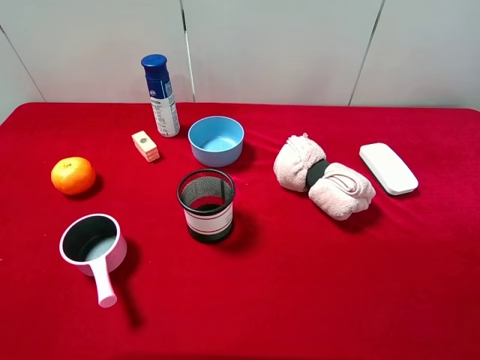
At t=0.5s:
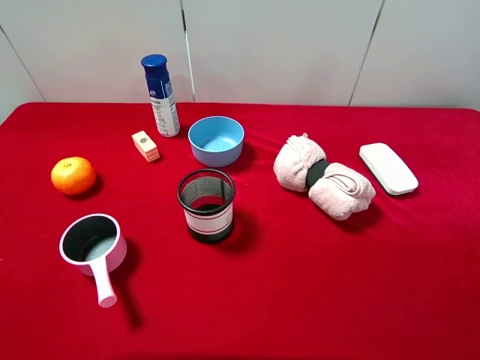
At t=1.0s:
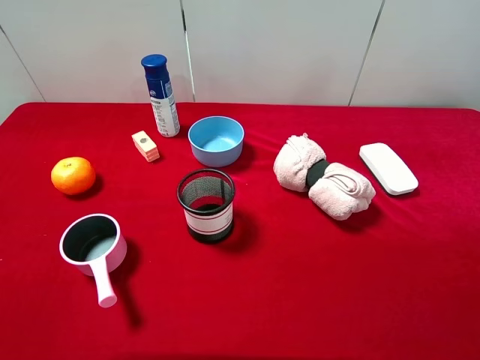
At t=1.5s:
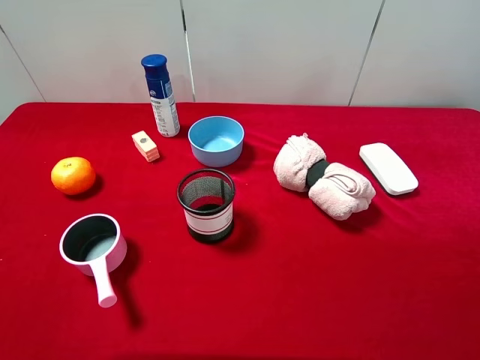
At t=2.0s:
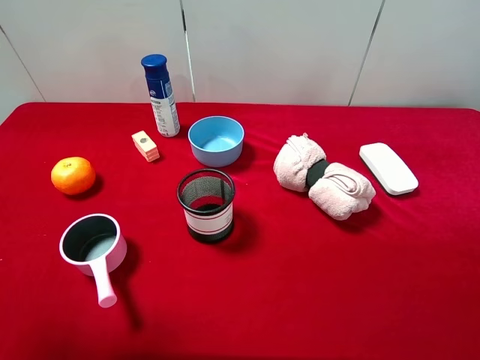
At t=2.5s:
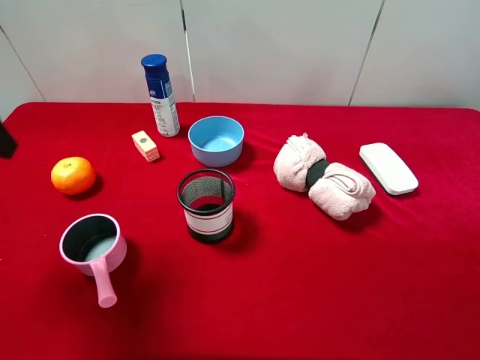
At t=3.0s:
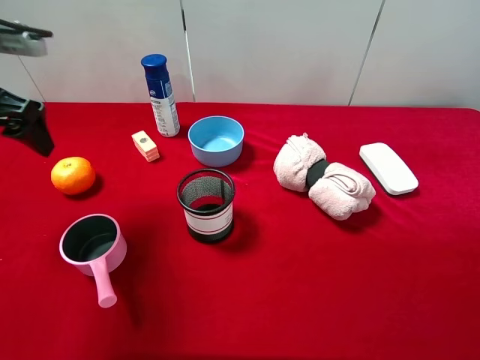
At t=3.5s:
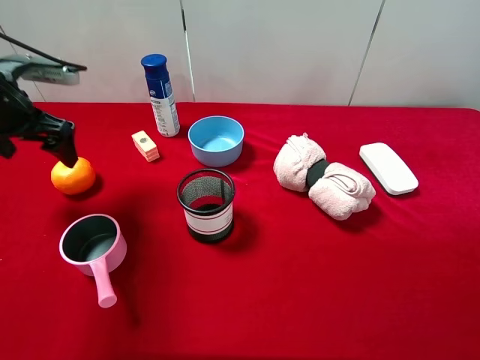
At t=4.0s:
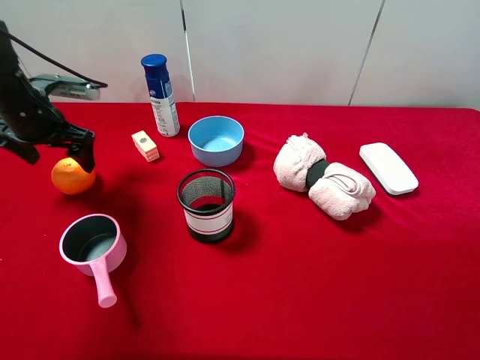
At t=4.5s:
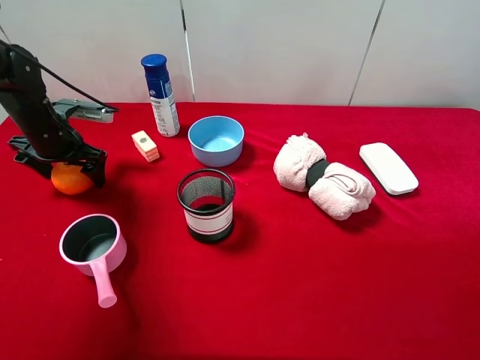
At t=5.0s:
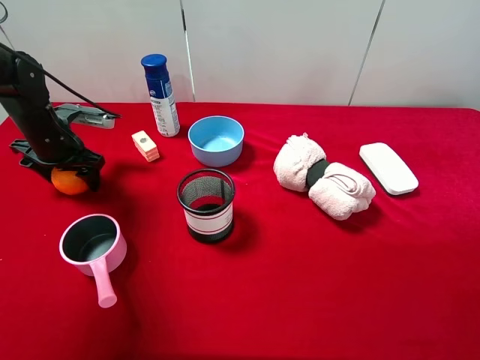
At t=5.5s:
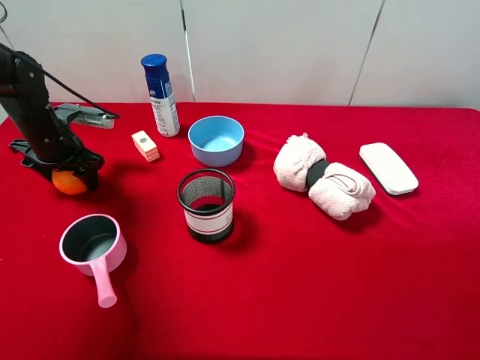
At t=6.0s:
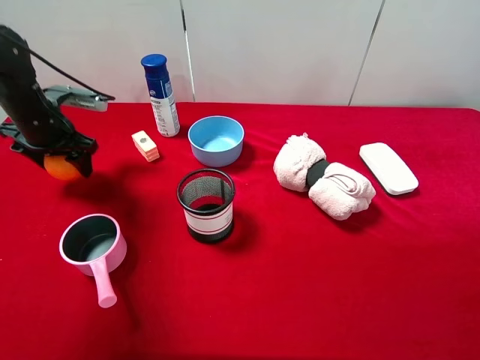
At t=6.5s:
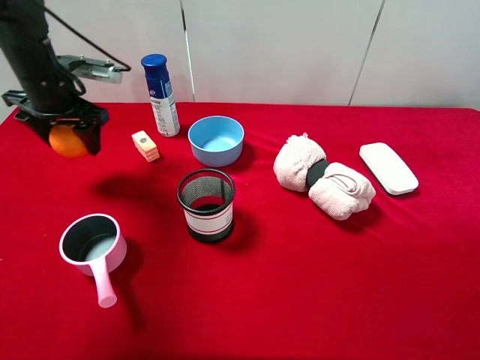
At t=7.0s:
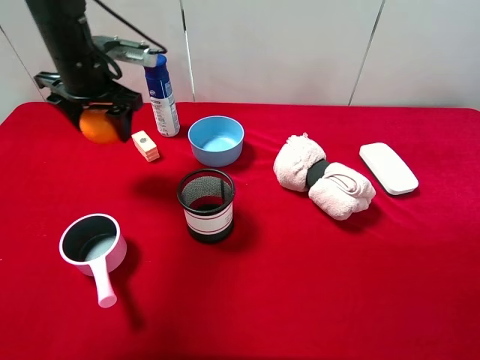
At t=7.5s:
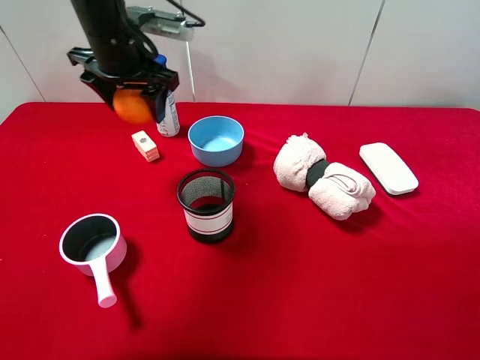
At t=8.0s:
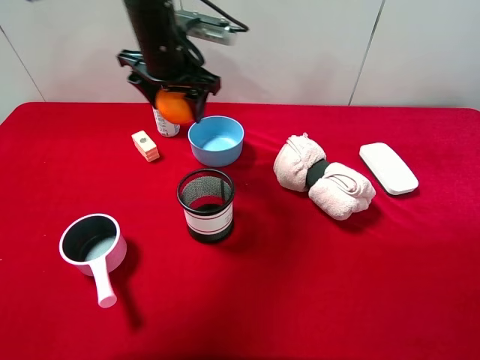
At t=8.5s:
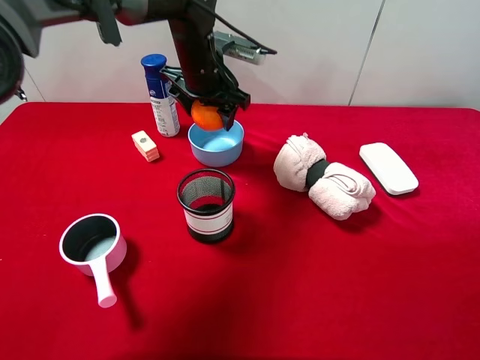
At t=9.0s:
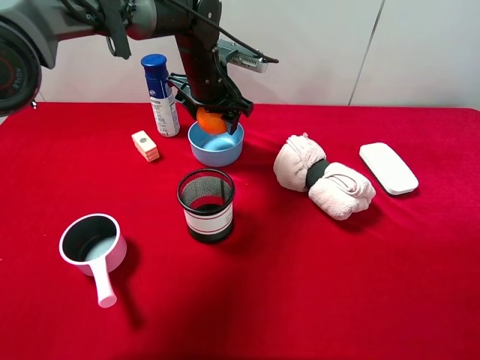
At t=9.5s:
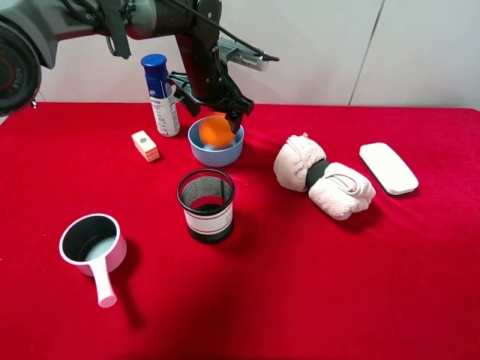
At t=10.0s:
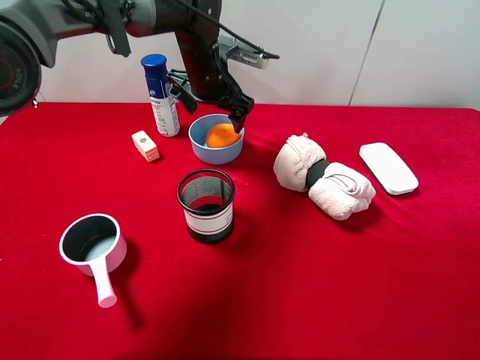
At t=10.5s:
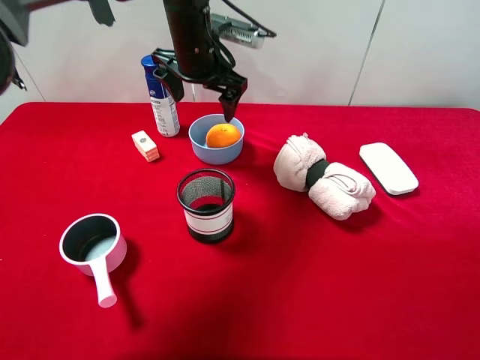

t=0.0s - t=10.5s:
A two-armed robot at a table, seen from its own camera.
Task of the whole recording: pick up an item with a gripper and place it in a random container on the desktop.
t=2.0s - t=4.0s: The left gripper moves forward and downward, about 30 cm.
t=4.0s - t=6.5s: The left gripper moves roughly 5 cm, and closes.
t=6.5s - t=8.5s: The left gripper is displaced to the right by roughly 20 cm.
t=8.5s - t=10.5s: The left gripper opens.

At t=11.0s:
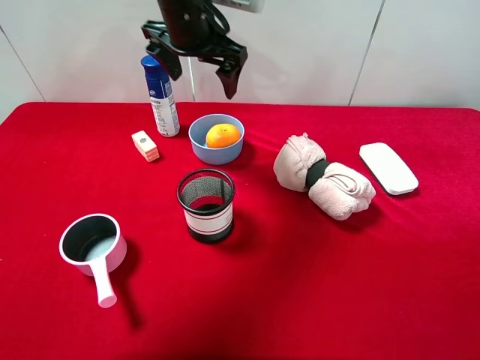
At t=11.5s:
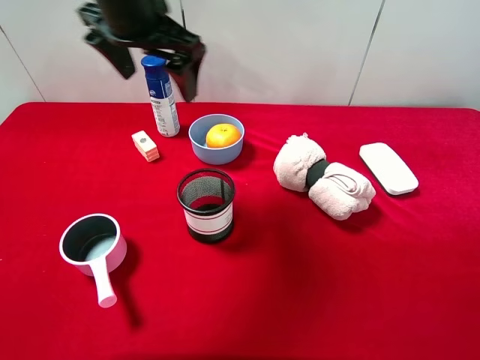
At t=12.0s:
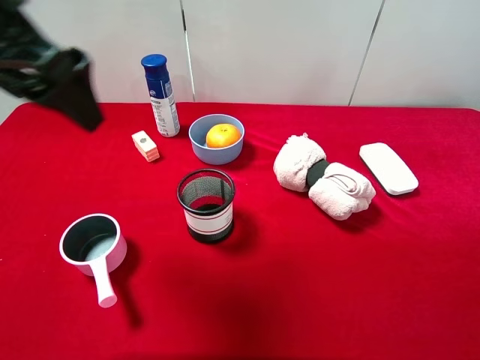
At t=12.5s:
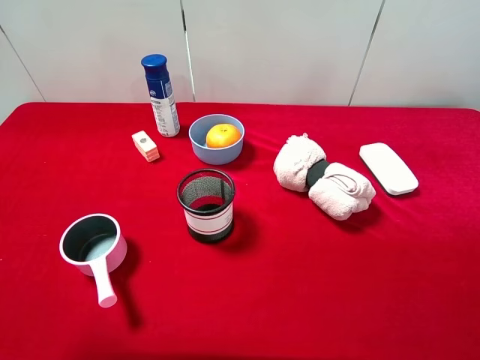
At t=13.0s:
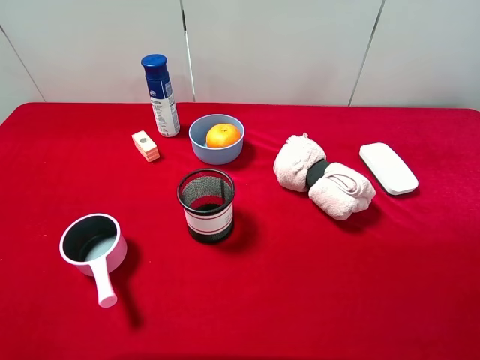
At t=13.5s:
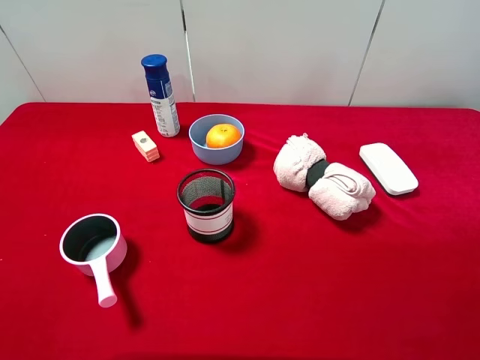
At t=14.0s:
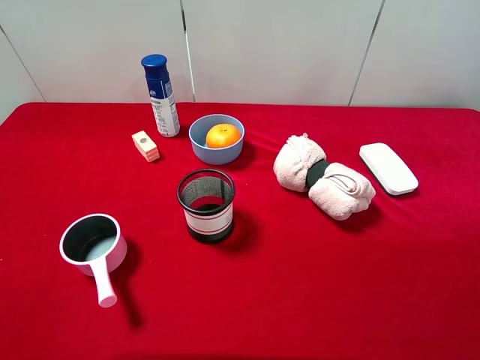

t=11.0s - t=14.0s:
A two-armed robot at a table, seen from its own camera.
Task of the whole recording: pick up an item with a gripper and place it in a random container on the desktop.
t=11.0s - t=12.5s: The left gripper travels backward and to the left by some 40 cm.

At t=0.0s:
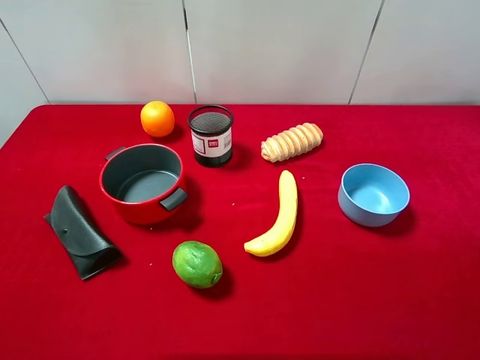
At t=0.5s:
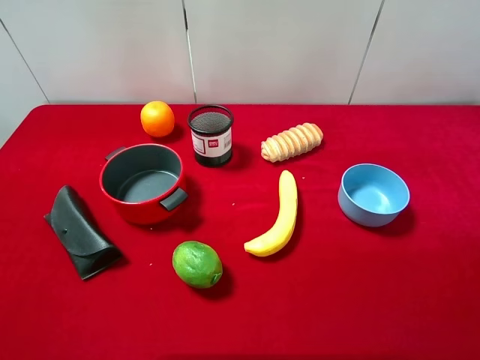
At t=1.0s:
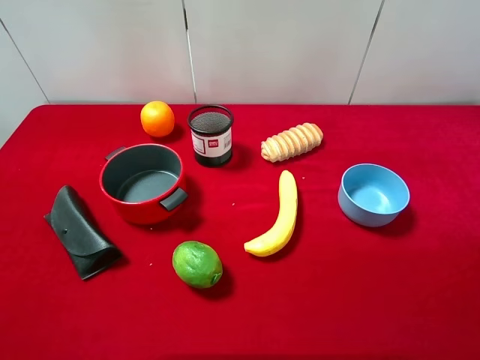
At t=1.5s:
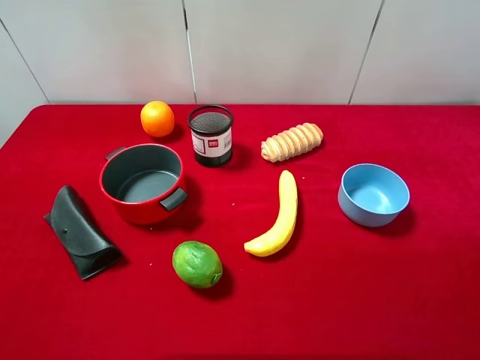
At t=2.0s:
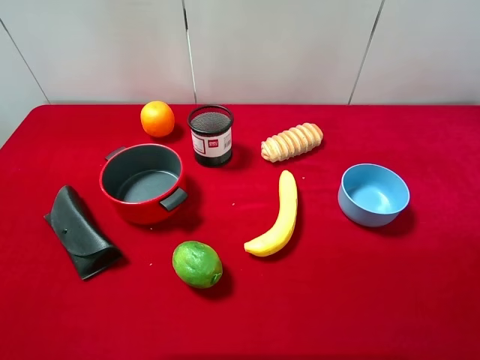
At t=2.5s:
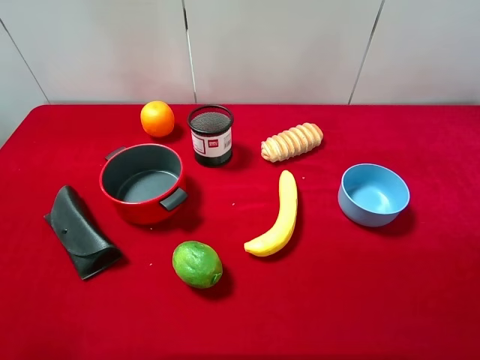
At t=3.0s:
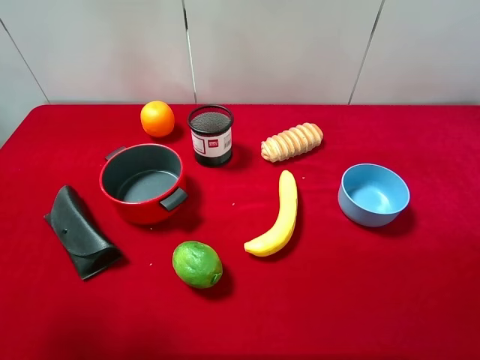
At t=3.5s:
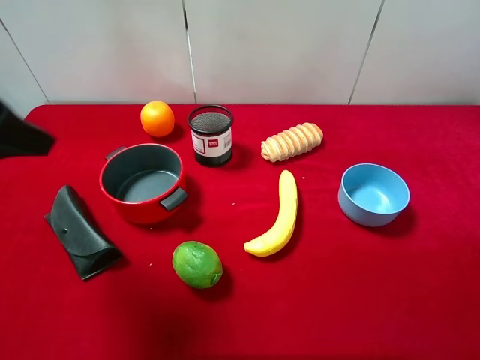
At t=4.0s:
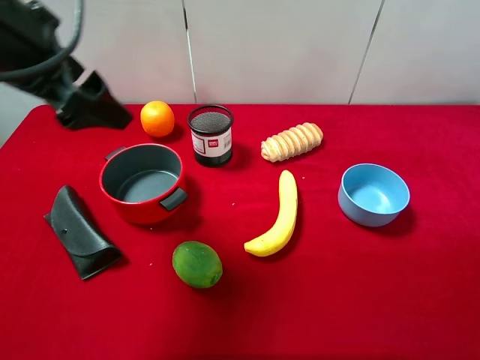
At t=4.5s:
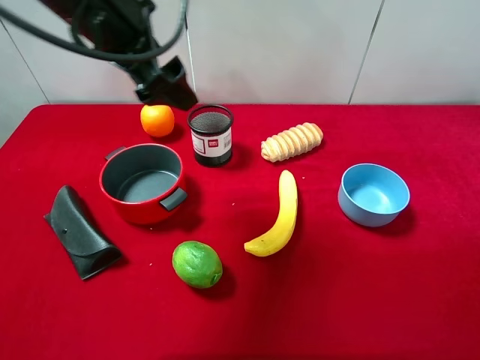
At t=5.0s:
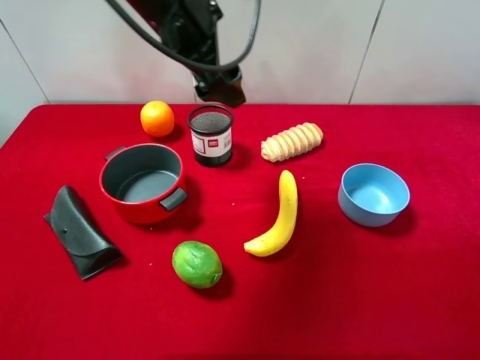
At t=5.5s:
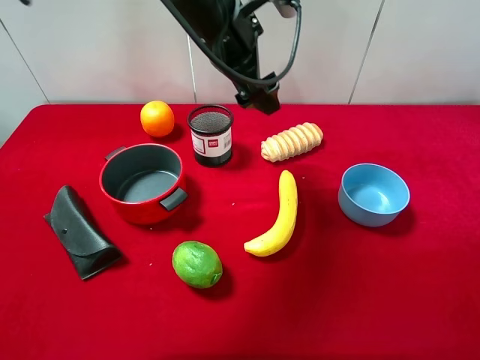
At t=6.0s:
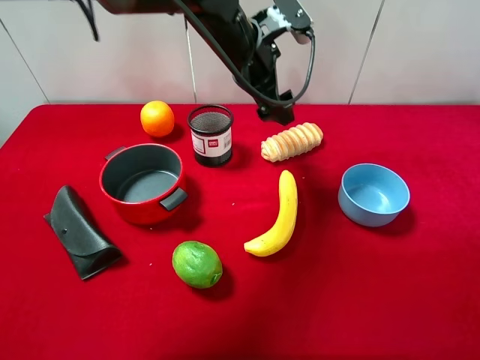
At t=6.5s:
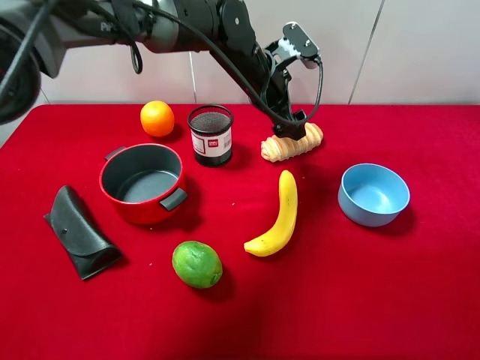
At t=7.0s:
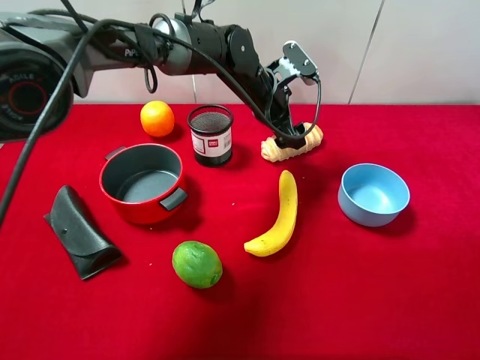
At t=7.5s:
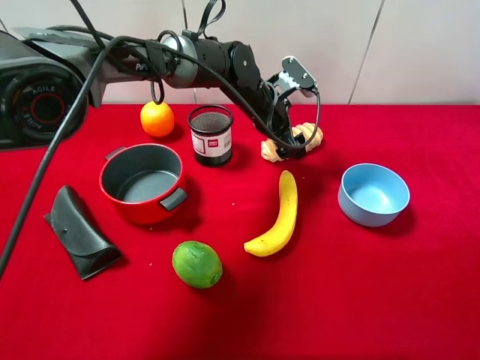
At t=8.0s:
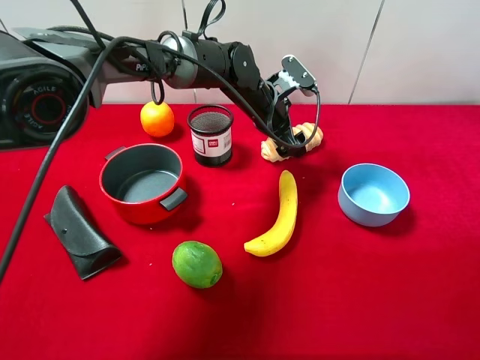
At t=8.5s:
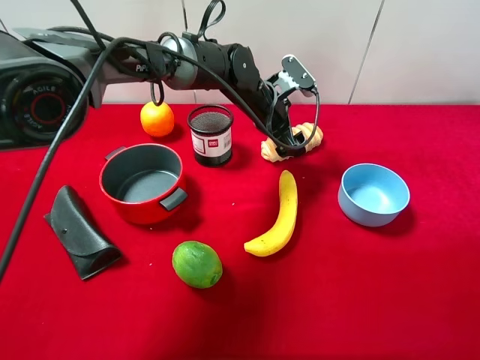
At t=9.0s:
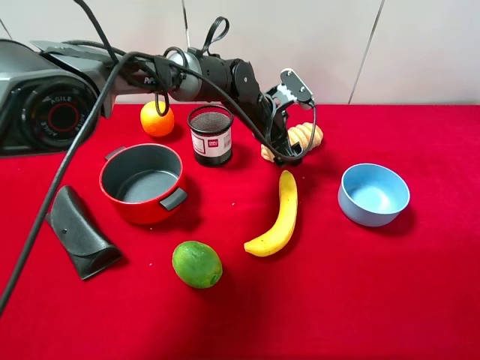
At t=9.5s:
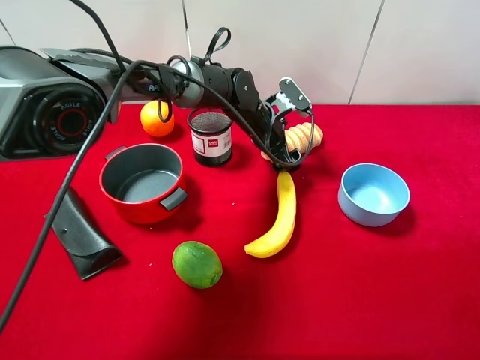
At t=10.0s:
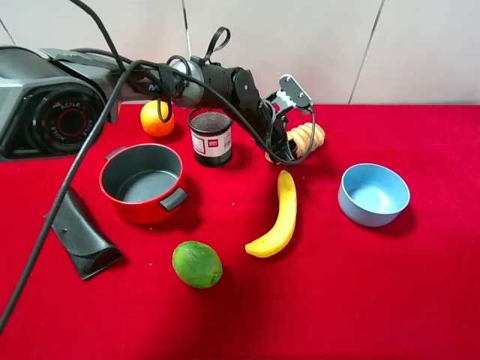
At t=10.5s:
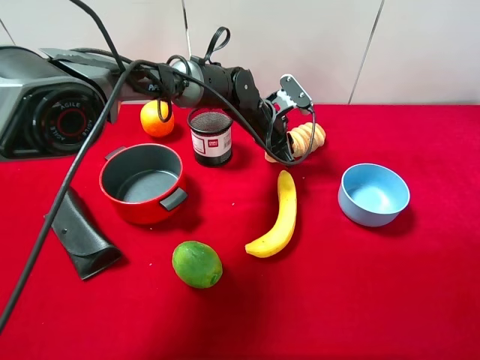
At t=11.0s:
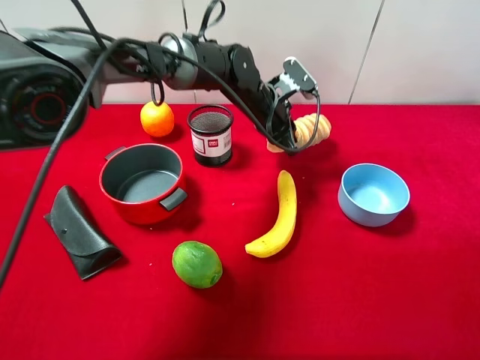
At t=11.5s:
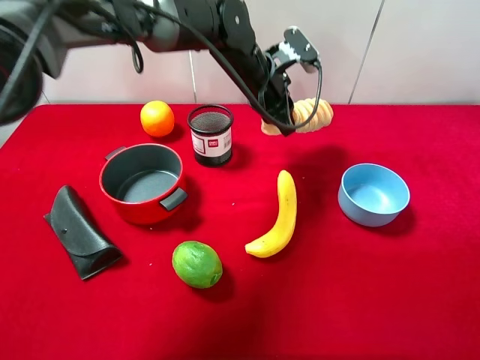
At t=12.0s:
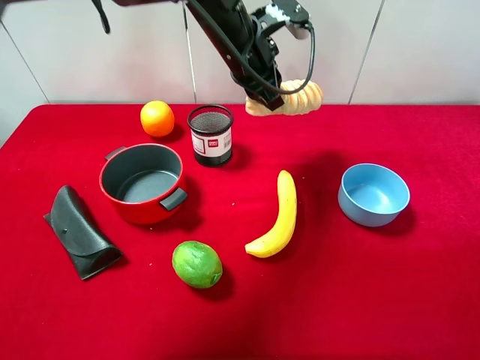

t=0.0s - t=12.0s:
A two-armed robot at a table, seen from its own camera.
Task of the whole recording: pick up an item with a gripper and place it in a random container on the desktop.
t=0.0s - t=2.0s: Both grippers stay put.
t=2.0s - t=4.0s: The left gripper moves forward and to the right, roughly 25 cm.
t=4.0s - t=6.0s: The left gripper is displaced to the right, forward and downward by roughly 25 cm.
t=6.0s - t=8.0s: The left gripper travels downward by about 10 cm.
t=8.0s - t=10.0s: The left gripper closes.
t=10.0s - t=12.0s: The left gripper heads upward, covering about 15 cm, and closes up.
